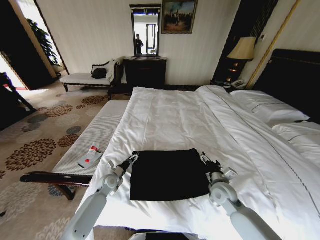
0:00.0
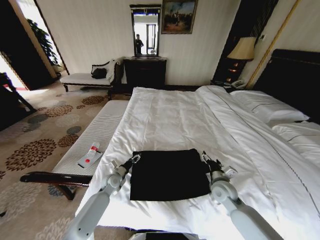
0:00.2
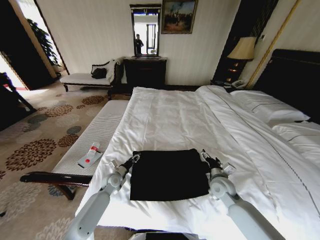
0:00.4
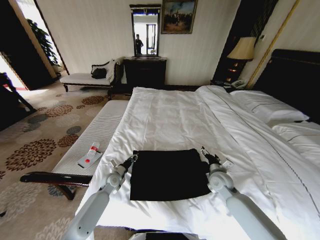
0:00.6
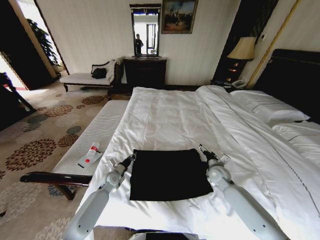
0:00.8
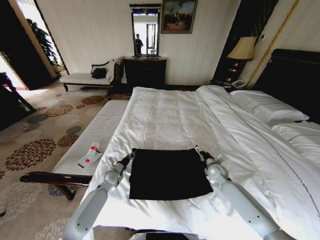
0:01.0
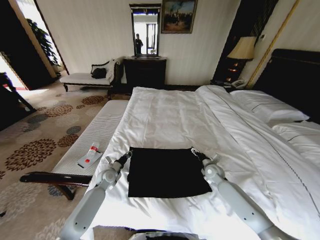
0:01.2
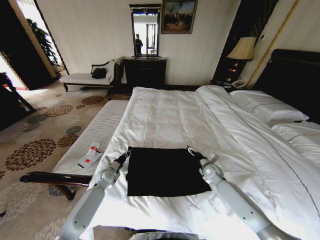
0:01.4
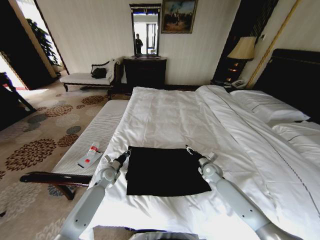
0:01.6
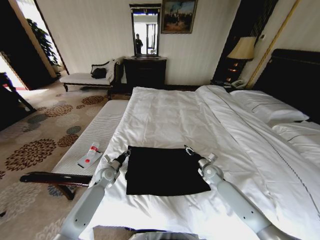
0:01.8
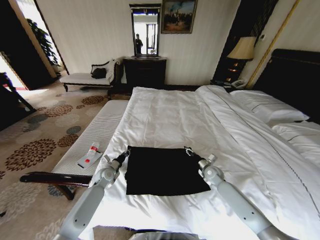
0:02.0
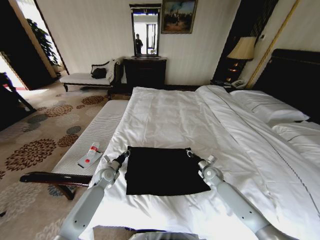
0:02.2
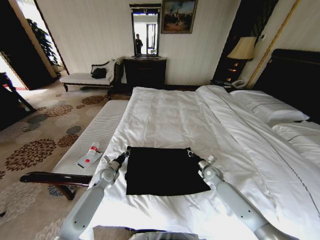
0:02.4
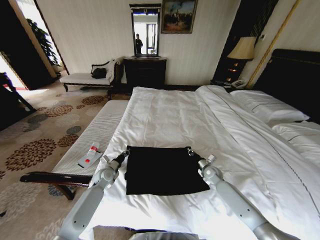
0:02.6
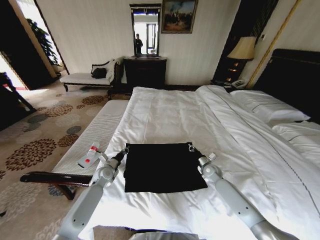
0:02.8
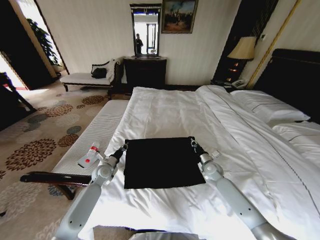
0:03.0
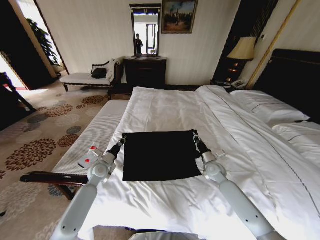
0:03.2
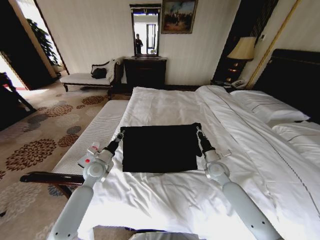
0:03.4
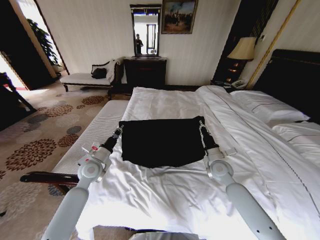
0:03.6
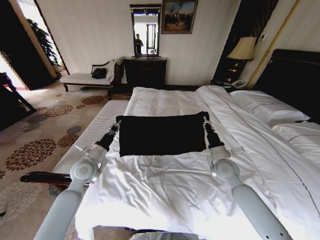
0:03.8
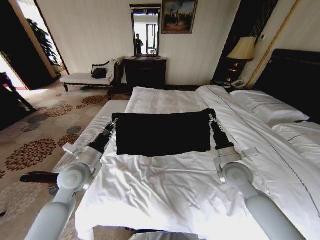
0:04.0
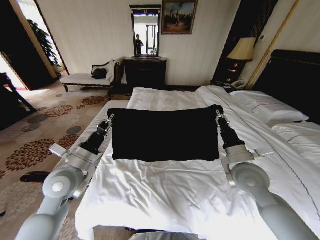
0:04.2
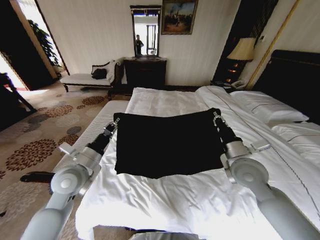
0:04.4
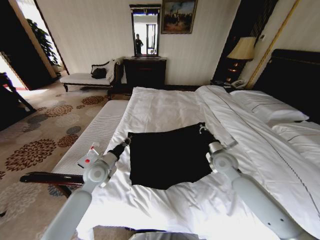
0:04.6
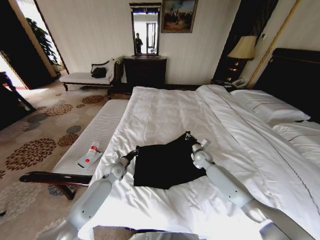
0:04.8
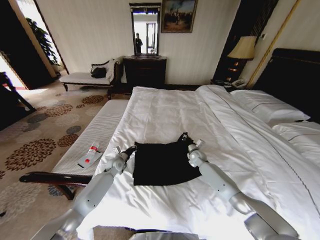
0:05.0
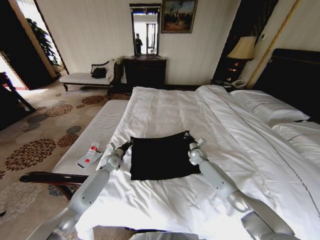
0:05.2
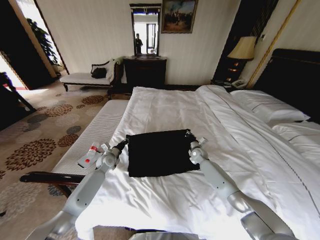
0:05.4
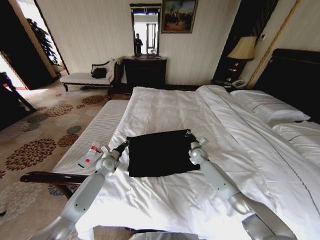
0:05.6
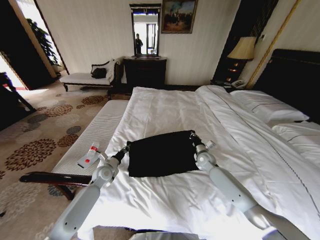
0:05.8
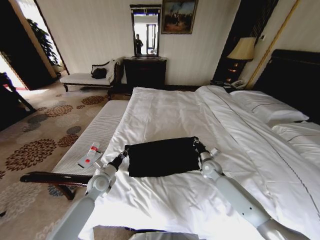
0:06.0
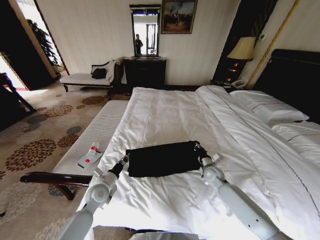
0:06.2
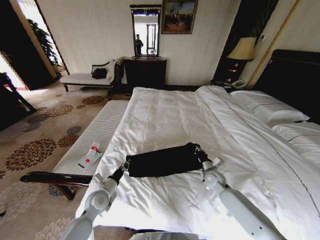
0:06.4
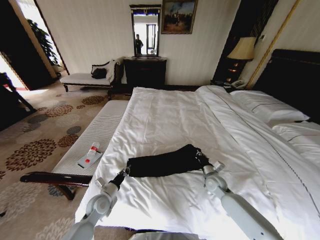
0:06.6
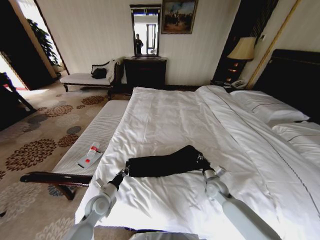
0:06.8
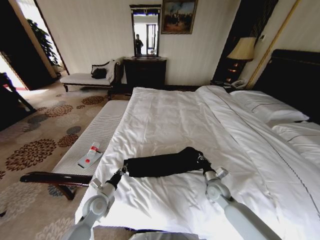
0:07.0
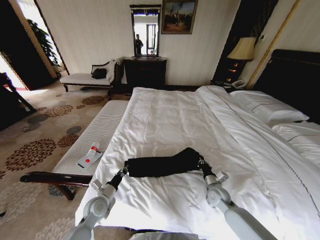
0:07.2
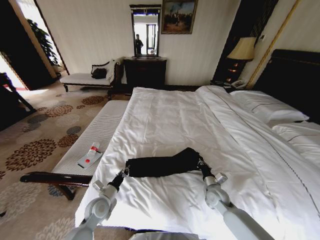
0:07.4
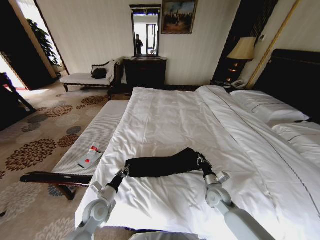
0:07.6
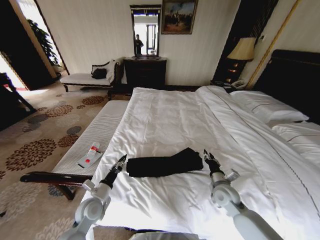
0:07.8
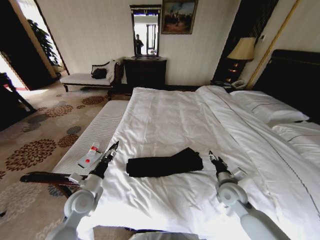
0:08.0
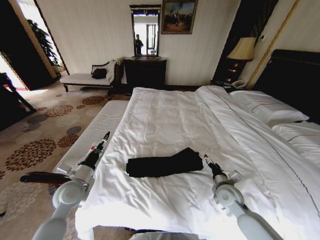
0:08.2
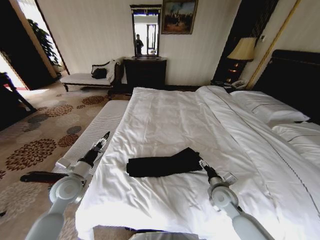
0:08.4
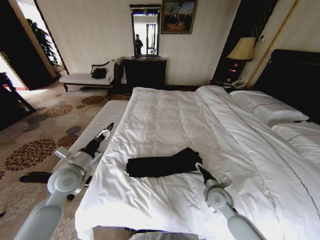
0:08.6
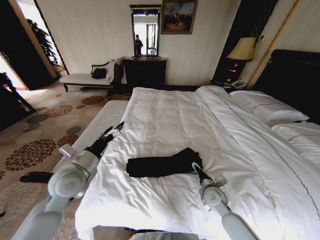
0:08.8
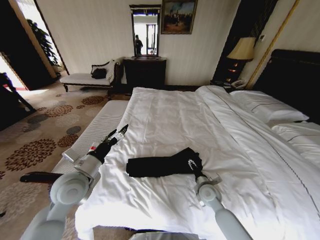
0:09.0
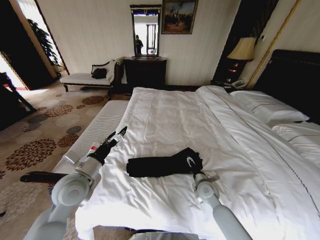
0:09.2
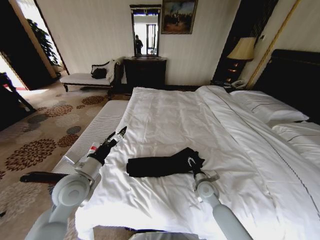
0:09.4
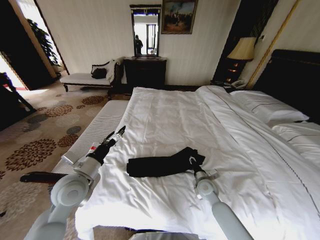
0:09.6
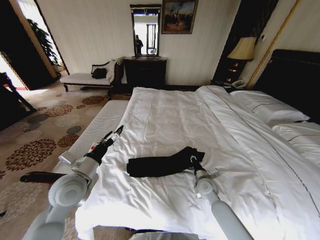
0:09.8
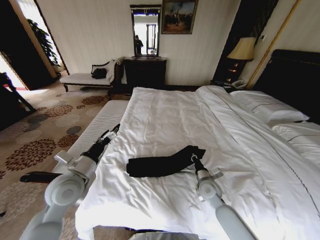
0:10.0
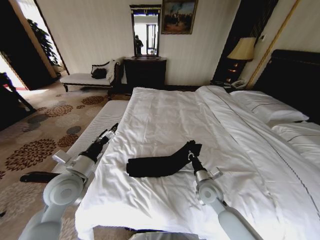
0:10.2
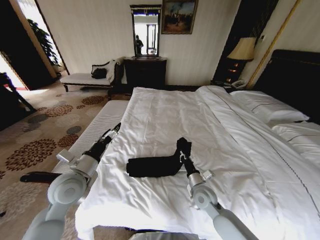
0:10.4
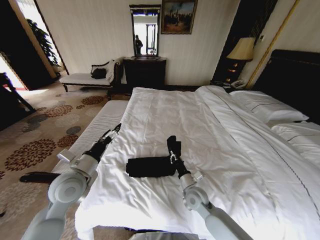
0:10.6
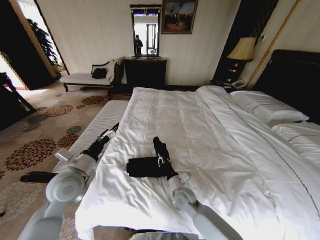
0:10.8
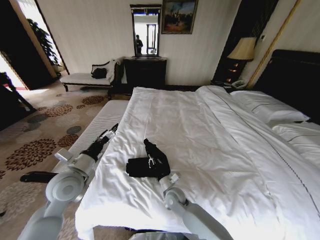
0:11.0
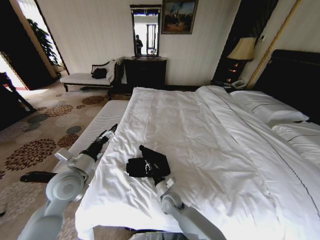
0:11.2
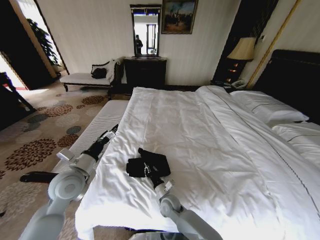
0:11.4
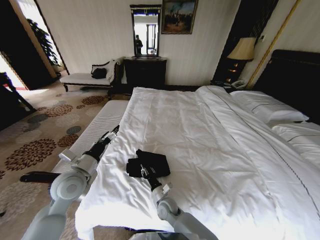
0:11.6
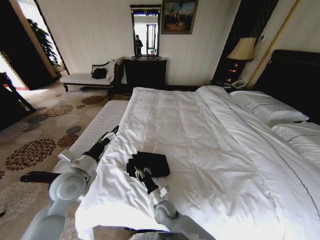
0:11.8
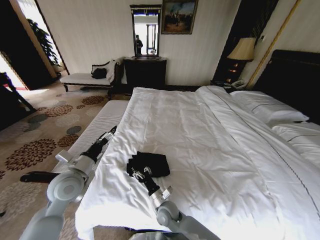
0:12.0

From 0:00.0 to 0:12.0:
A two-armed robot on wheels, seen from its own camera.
Task of the whole recording: Fold the clothes on the bed.
From 0:00.0 to 0:01.6: The right gripper heads forward, covering approximately 15 cm; the left gripper closes.
From 0:01.6 to 0:03.0: The right gripper closes.
From 0:03.0 to 0:04.4: Both grippers move upward and backward, approximately 25 cm.
From 0:04.4 to 0:06.0: The right gripper shifts some 25 cm downward and forward. Meanwhile the left gripper shifts approximately 20 cm downward.
From 0:06.0 to 0:07.6: Both grippers travel together backward, approximately 10 cm.
From 0:07.6 to 0:09.0: The left gripper travels upward by about 20 cm, and opens; the right gripper travels upward and back again, about 10 cm each way, and opens its fingers.
From 0:09.0 to 0:10.4: The right gripper closes up.
From 0:10.4 to 0:12.0: The right gripper shifts some 20 cm to the left and downward, and opens its fingers.

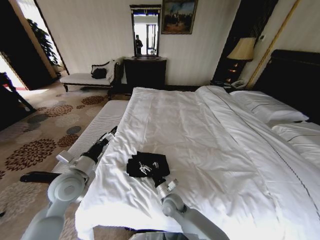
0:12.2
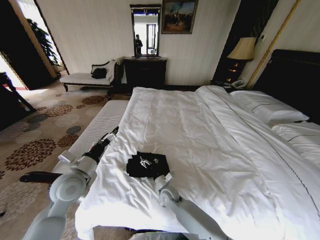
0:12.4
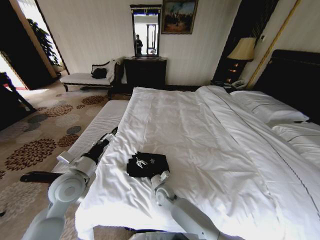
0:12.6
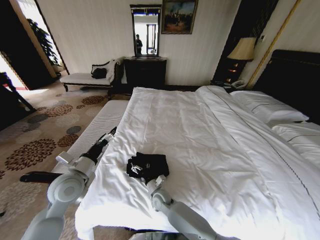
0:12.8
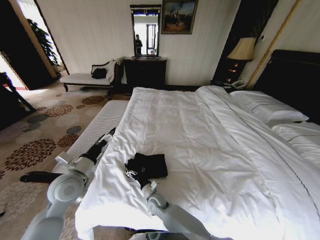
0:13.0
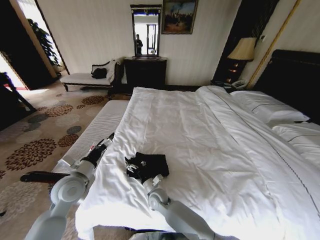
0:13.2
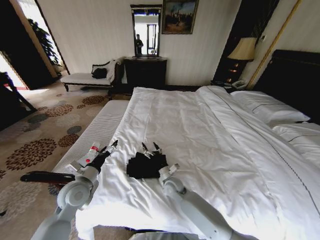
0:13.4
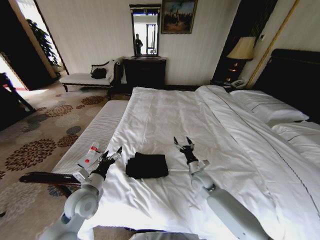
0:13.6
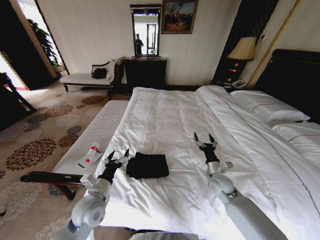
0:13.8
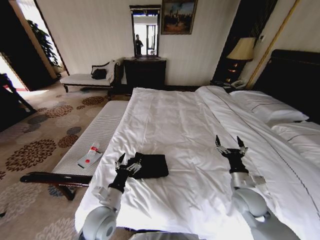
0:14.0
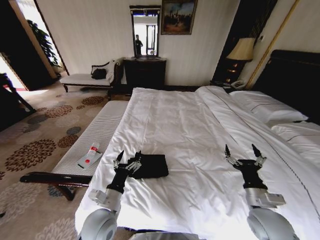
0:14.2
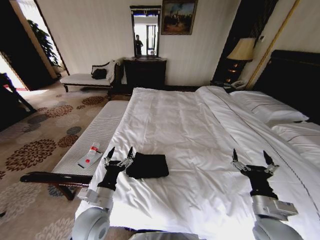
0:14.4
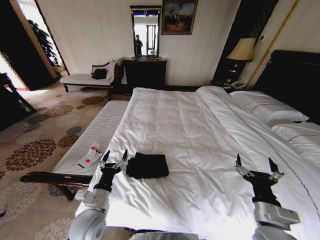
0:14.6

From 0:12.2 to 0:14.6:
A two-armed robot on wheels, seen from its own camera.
Task of the whole recording: Fold the clothes on the bed.
From 0:12.2 to 0:13.4: The left gripper goes about 5 cm downward. Meanwhile the right gripper is displaced forward by roughly 5 cm.
From 0:13.4 to 0:14.6: The left gripper goes about 10 cm backward and to the right. The right gripper moves to the right, backward and upward, about 35 cm.

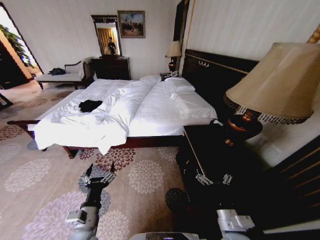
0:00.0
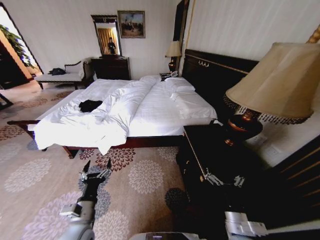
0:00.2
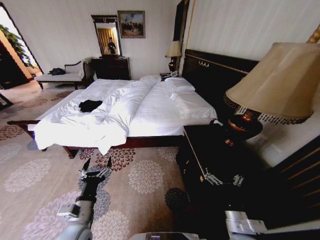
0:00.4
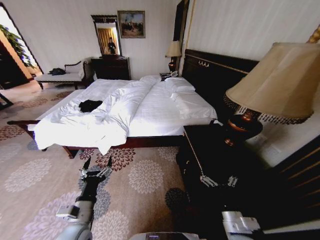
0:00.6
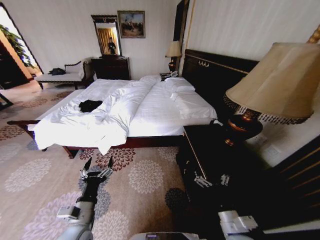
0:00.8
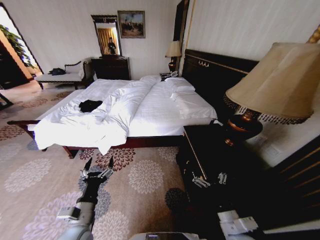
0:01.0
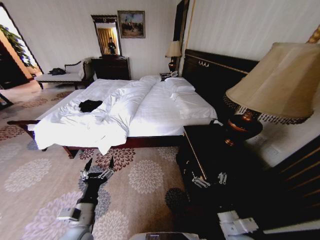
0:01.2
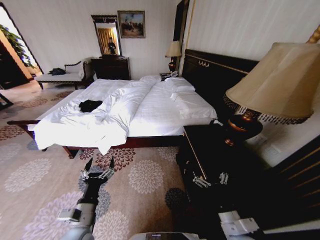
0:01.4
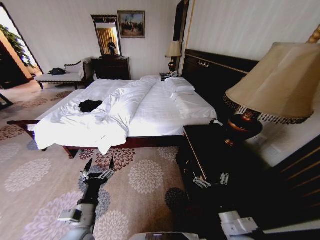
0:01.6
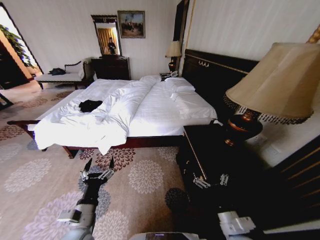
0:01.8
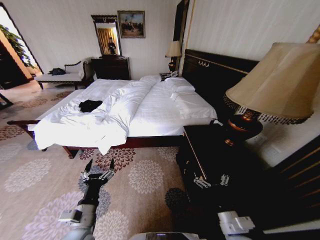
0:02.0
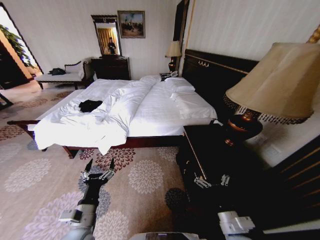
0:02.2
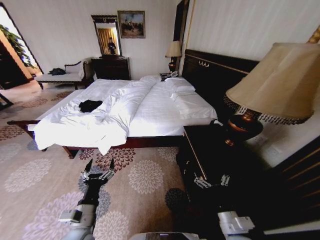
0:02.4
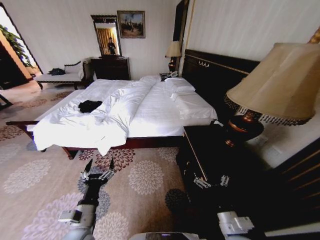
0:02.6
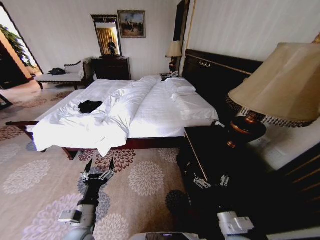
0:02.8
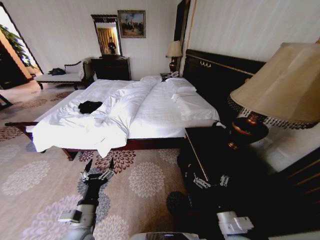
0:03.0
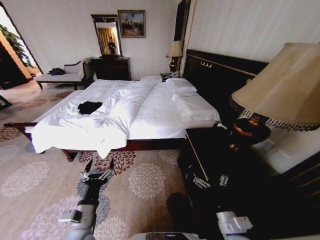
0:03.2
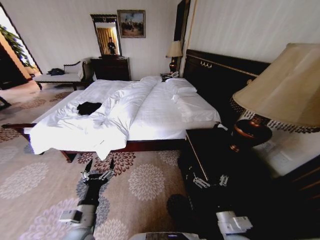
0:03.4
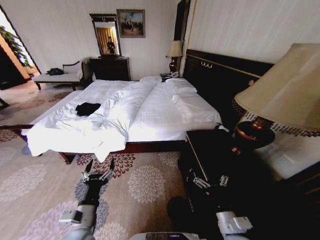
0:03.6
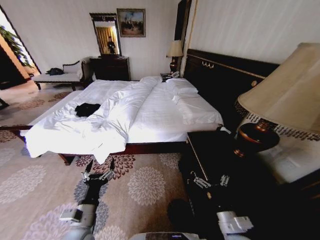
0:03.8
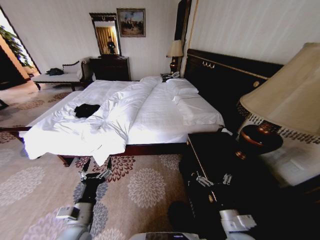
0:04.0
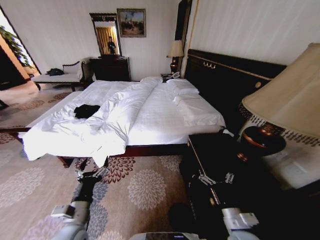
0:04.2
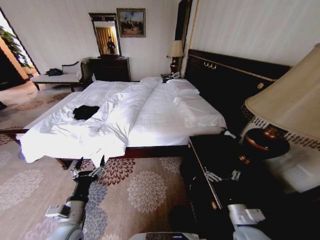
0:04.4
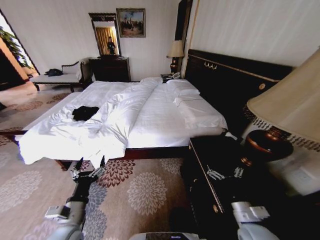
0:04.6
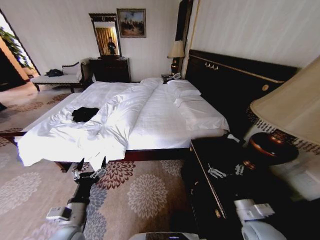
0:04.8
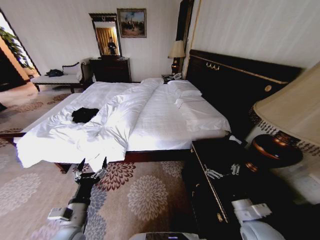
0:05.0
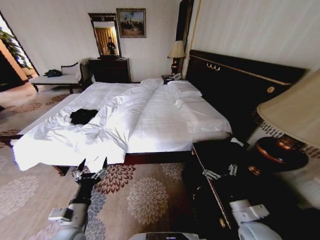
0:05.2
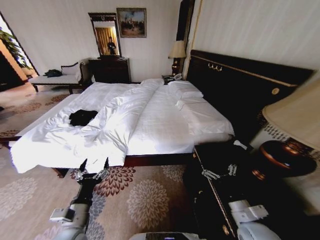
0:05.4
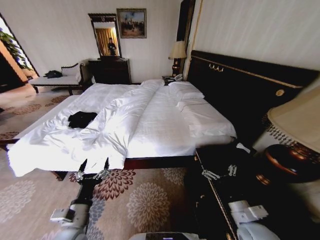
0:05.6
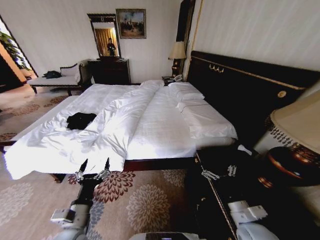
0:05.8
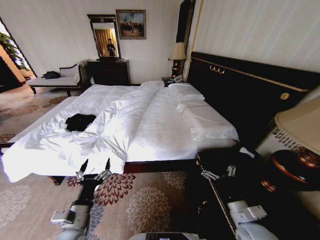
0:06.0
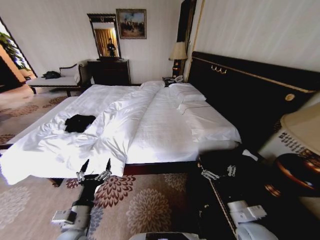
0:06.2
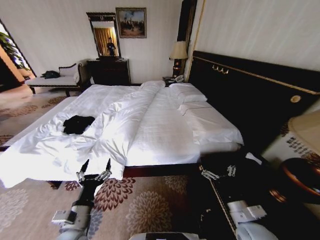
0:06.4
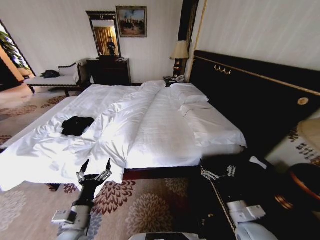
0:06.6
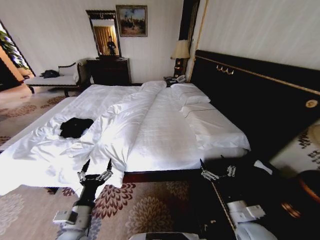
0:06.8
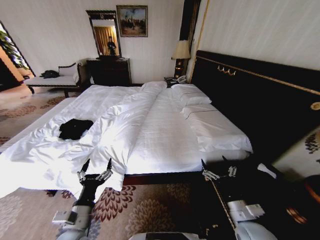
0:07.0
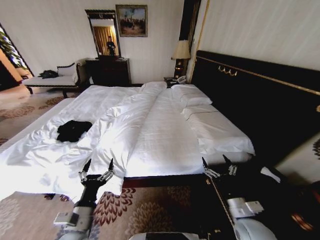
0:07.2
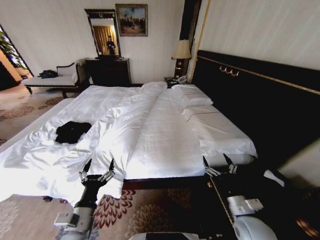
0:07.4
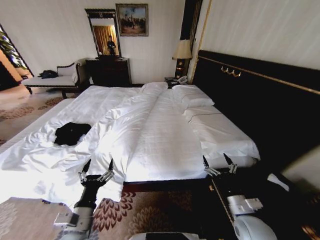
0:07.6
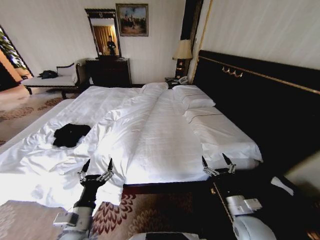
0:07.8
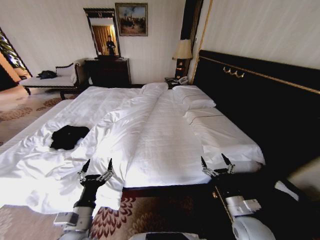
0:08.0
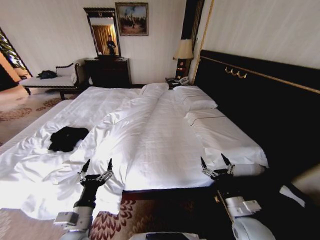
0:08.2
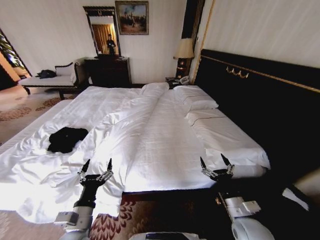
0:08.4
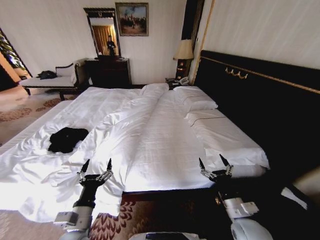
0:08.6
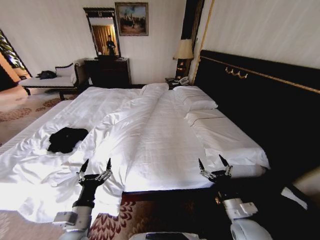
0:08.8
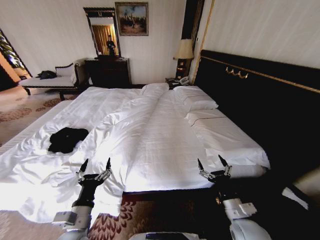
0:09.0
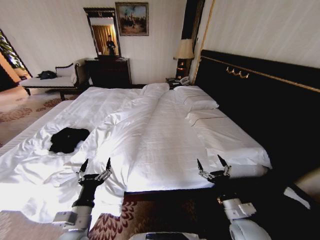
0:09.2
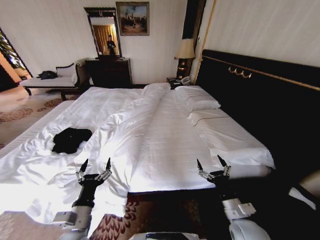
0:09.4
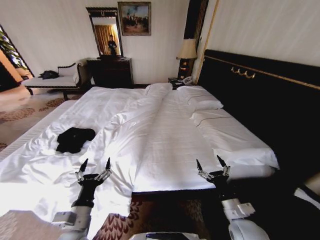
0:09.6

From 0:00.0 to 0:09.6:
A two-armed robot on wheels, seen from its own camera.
Task of the whole recording: Fold the clothes on the bed.
From 0:01.6 to 0:03.2: Neither gripper changes place.
From 0:03.2 to 0:04.8: The right gripper moves to the right, approximately 5 cm.
